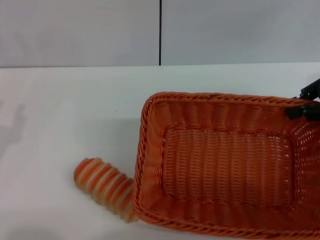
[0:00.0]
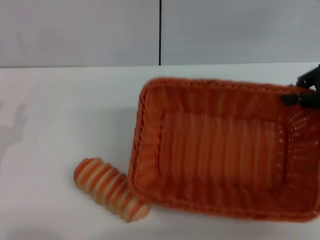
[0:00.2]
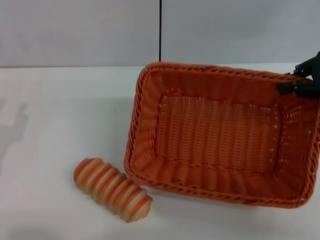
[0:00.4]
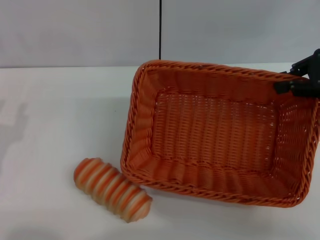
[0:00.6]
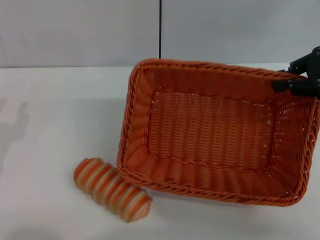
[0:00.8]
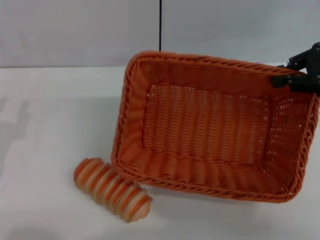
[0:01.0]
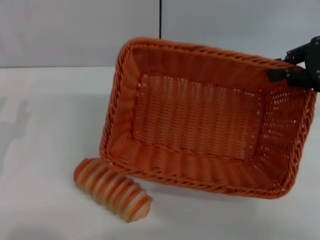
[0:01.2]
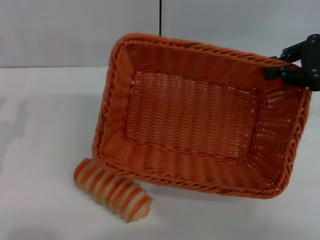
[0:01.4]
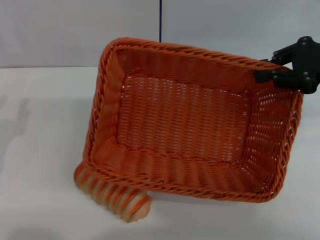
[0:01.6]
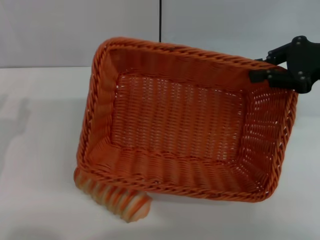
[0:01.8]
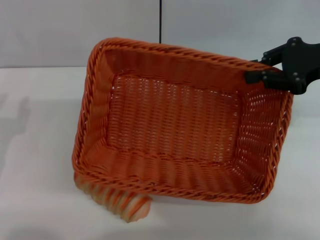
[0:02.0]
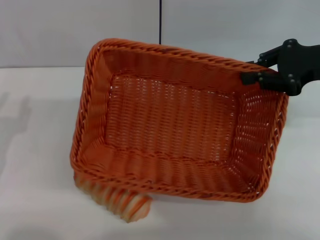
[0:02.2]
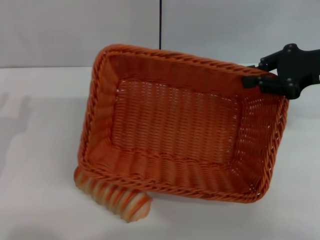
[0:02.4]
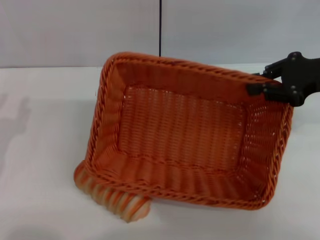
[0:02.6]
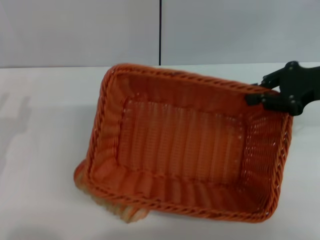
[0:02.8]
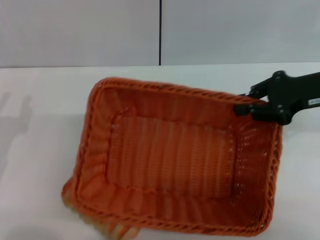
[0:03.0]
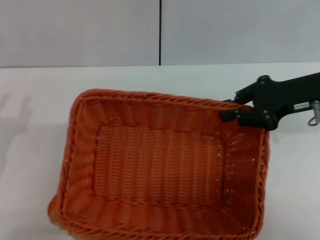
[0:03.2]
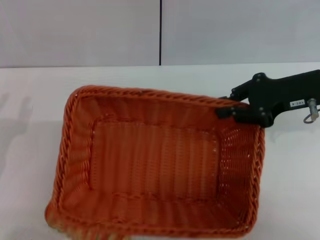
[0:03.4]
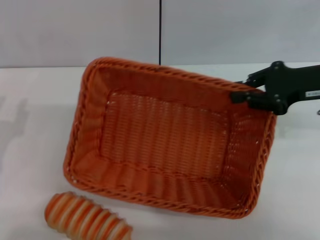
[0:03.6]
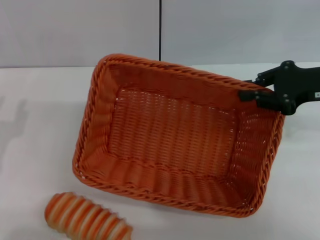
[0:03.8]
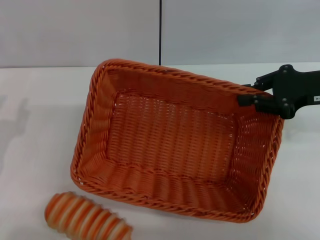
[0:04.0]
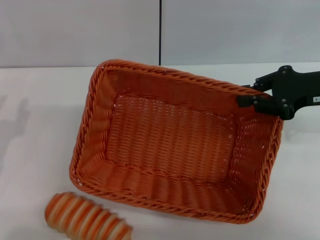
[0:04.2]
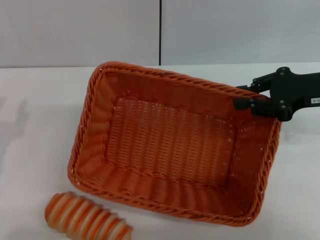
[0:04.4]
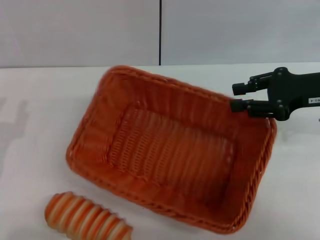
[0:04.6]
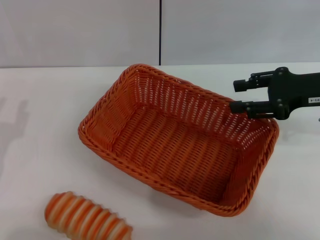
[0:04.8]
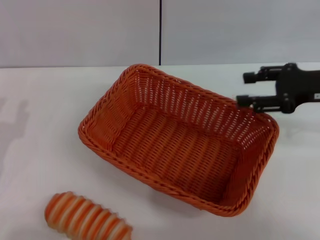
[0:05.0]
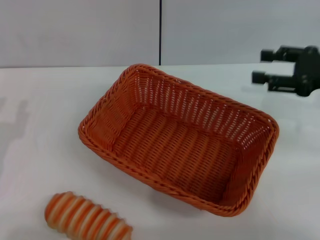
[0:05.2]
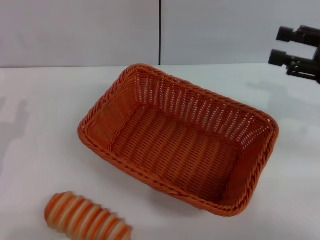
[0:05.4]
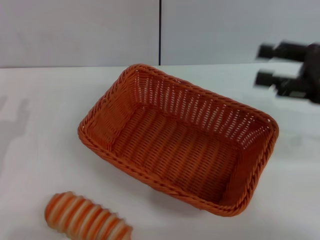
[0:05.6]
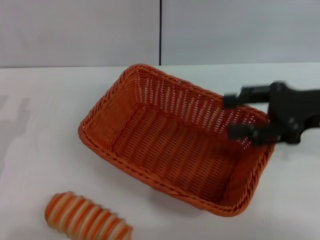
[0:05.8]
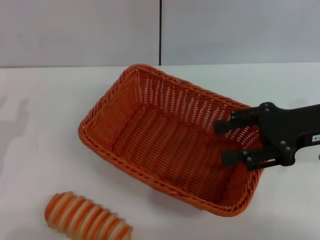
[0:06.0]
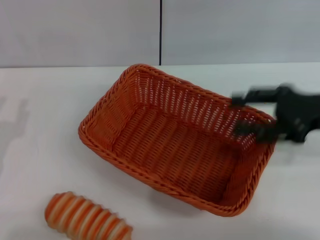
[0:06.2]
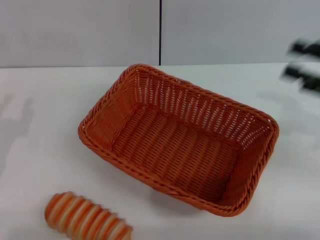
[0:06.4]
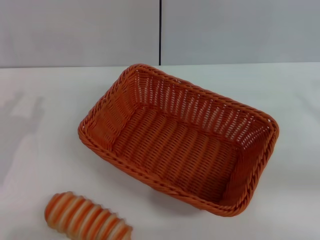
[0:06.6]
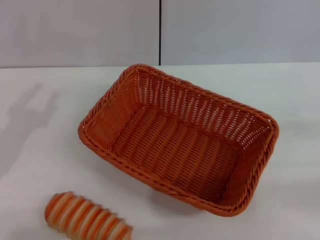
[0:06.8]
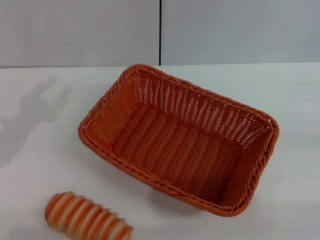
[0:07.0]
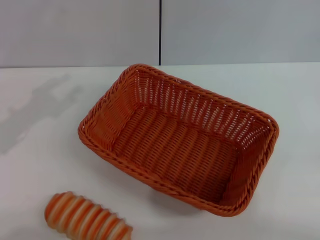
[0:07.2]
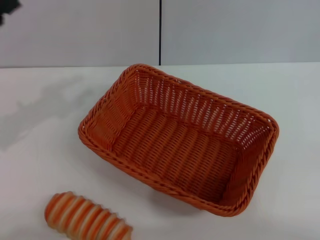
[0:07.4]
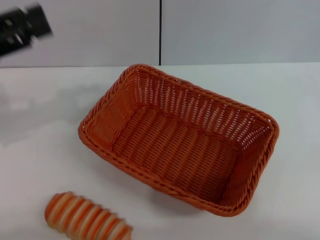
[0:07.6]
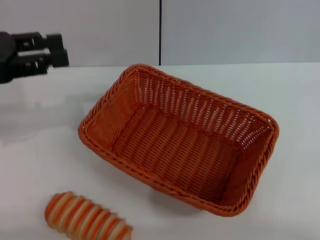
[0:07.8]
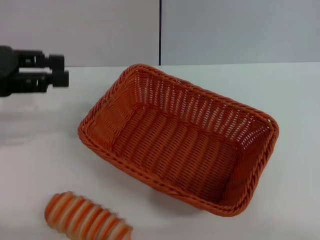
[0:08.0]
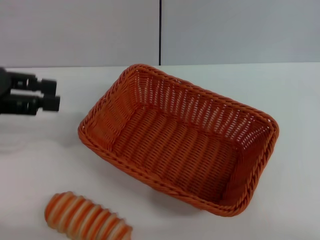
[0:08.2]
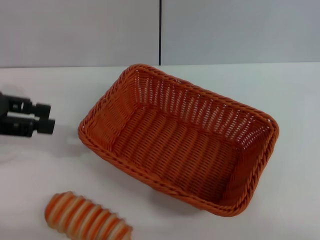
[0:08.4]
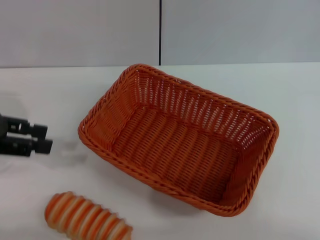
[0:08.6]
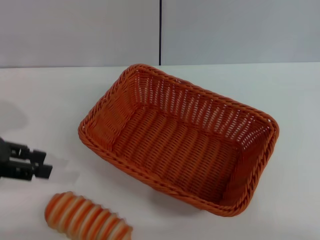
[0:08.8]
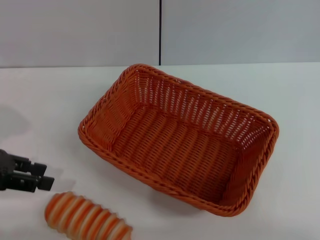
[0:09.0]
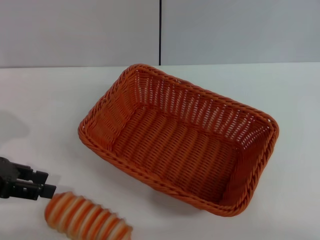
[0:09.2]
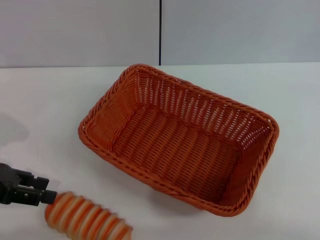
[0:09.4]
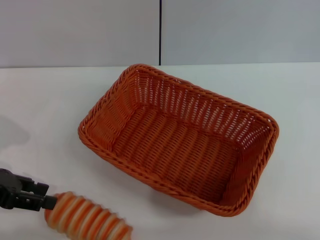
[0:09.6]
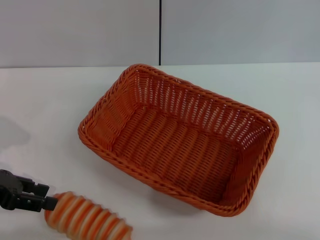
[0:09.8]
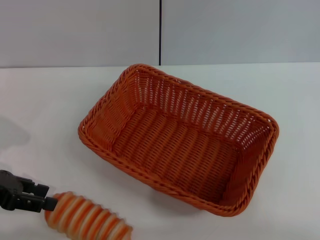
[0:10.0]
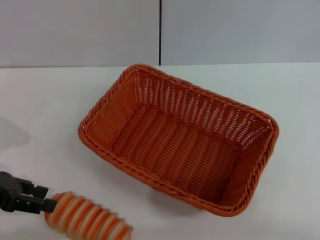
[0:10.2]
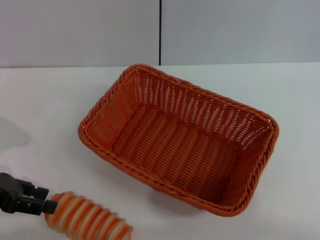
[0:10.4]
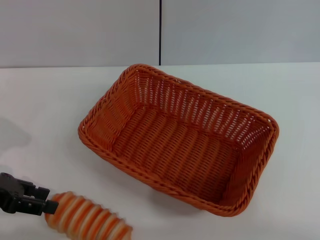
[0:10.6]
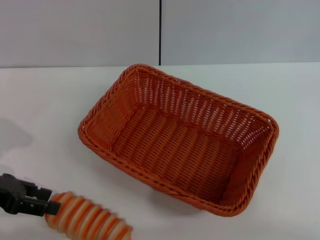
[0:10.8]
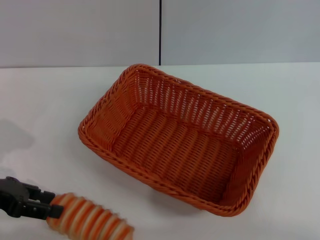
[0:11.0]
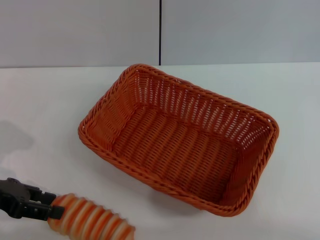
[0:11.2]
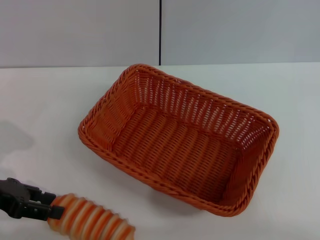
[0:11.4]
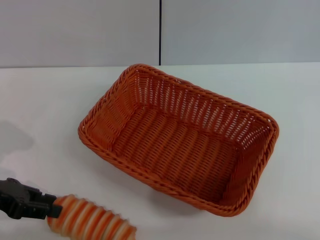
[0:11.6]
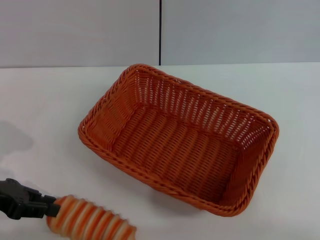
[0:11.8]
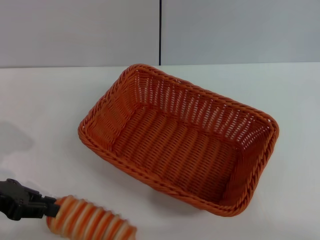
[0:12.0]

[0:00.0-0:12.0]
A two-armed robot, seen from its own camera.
Step, 0:00.0 to 0:05.0: Place the light basket in the center of view with the right gripper.
0:03.0 to 0:04.4: The grippers make only small movements.
0:04.4 to 0:06.0: The right gripper opens.
0:06.0 to 0:07.6: The left gripper shifts roughly 15 cm upward and forward. Meanwhile the right gripper heads to the right, backward and downward, covering roughly 25 cm.
0:07.6 to 0:09.0: The left gripper changes place by about 5 cm.
0:09.0 to 0:10.4: The grippers stay close to where they were, moving slightly.
0:10.4 to 0:12.0: The left gripper closes up.

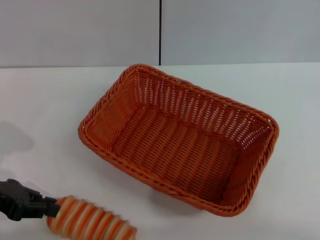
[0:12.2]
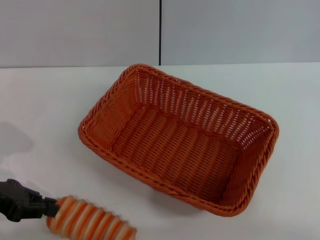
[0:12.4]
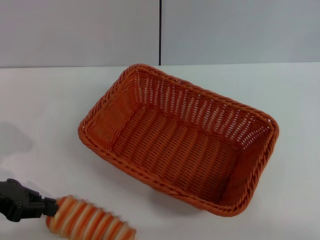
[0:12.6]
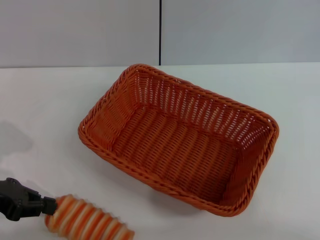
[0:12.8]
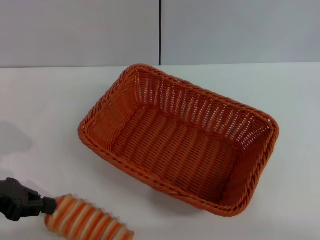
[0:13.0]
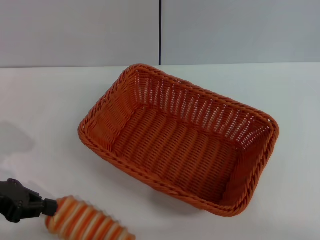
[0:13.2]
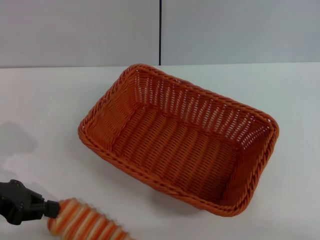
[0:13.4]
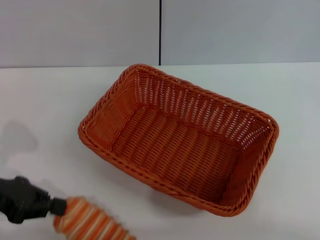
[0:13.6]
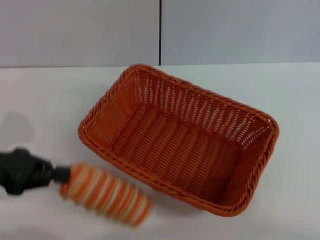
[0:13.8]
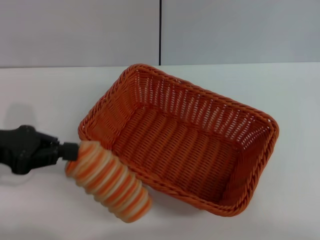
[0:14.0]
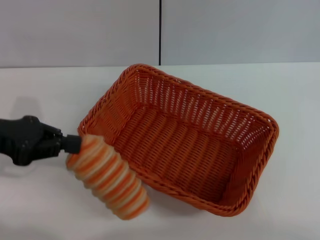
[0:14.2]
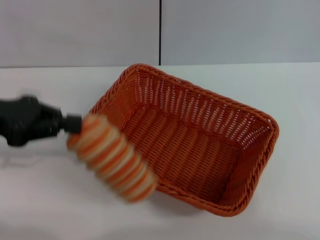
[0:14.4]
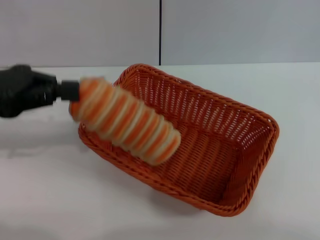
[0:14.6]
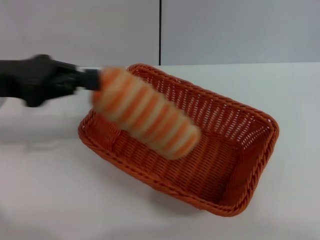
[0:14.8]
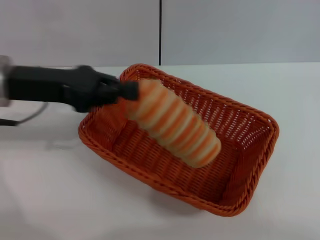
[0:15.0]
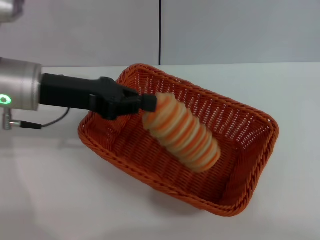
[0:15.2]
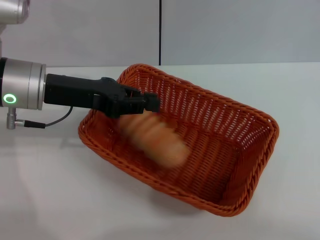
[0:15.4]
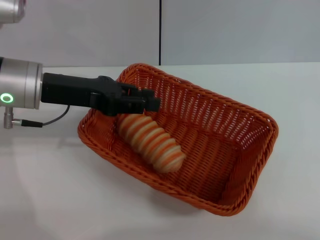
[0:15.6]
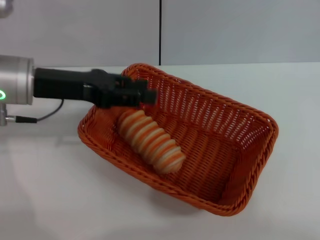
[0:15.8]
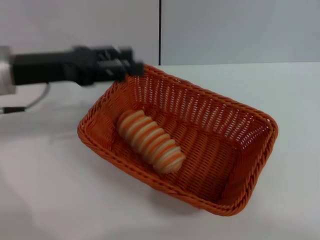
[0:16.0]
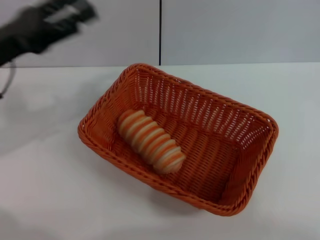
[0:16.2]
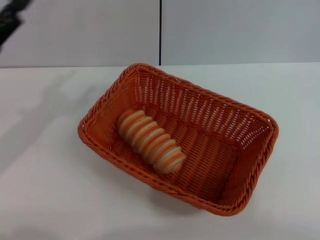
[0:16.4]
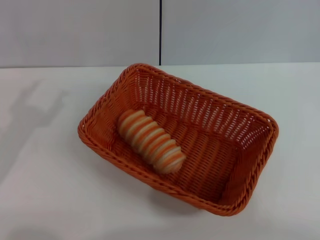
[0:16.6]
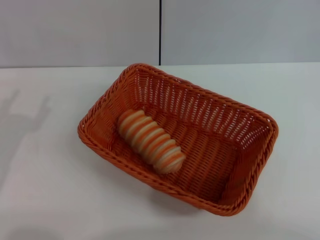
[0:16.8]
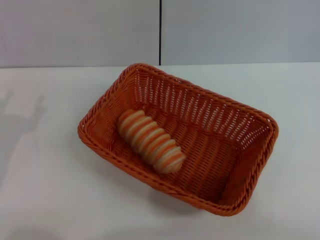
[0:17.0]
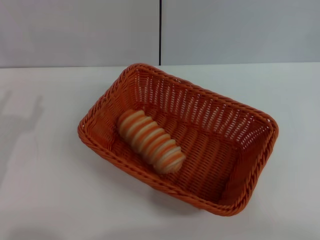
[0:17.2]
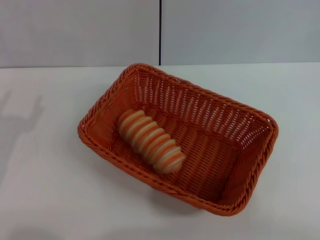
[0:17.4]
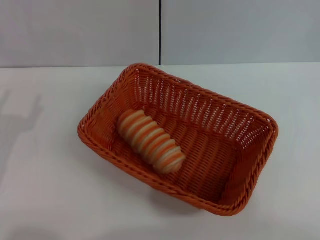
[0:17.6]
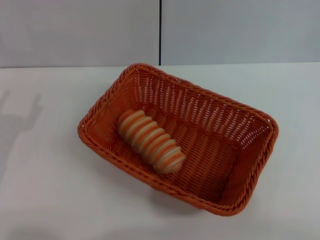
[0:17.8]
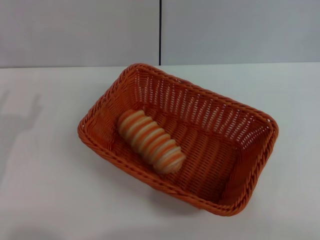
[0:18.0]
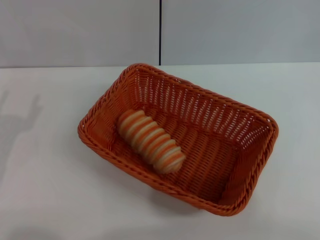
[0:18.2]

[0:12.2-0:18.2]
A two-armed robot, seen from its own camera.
Step, 0:12.2 to 0:14.2: Pick up the long bread with the left gripper.
Step, 0:14.6 to 0:16.0: Place the long bread into the light basket with the left gripper.
0:12.2 to 0:13.8: The grippers stay close to where they were, moving slightly.
0:13.8 to 0:15.2: The left gripper heads to the right and forward, covering some 15 cm.
0:15.2 to 0:16.6: The left gripper heads backward, to the left and downward, covering approximately 15 cm, and opens.
